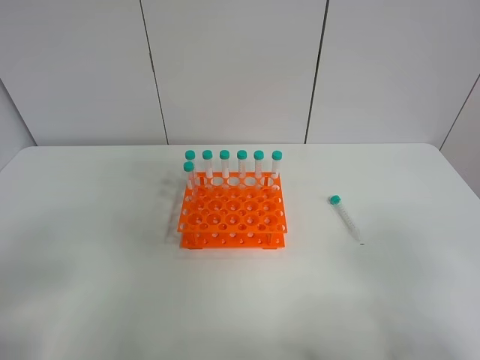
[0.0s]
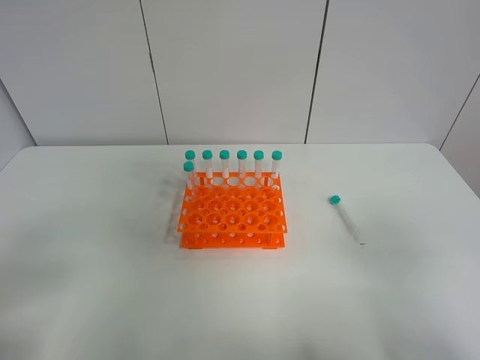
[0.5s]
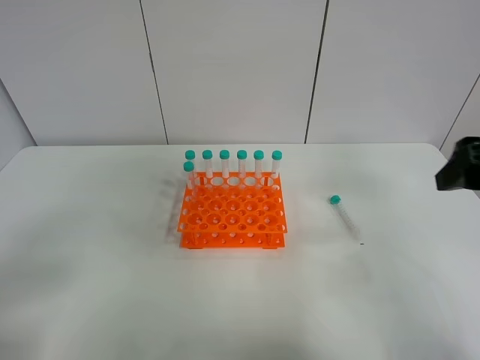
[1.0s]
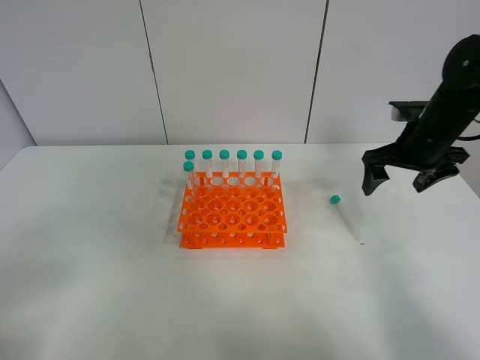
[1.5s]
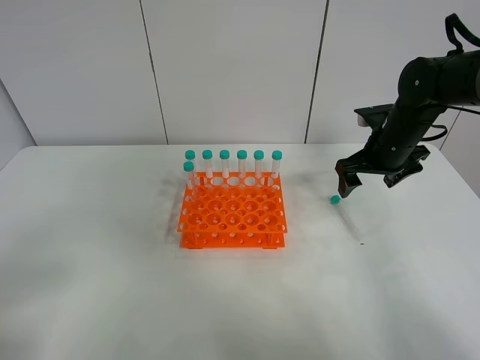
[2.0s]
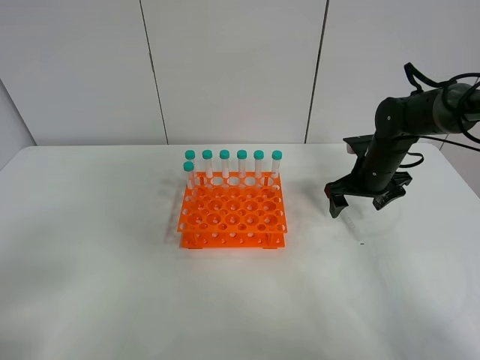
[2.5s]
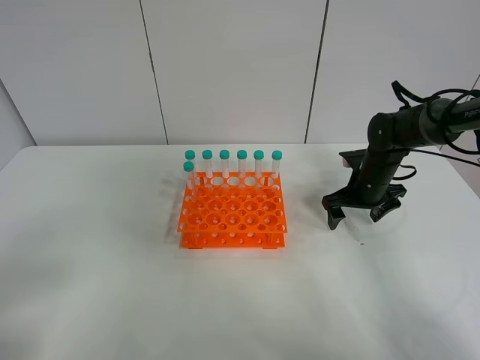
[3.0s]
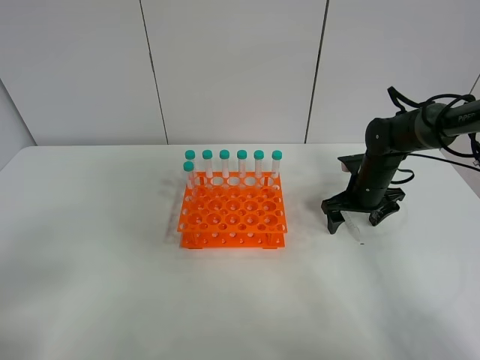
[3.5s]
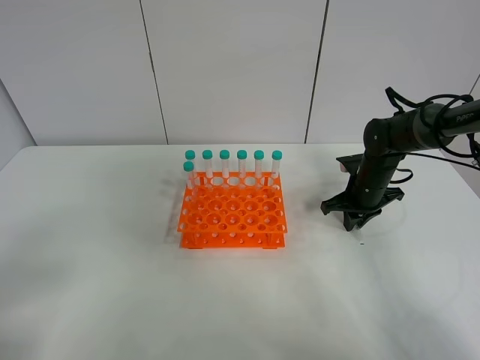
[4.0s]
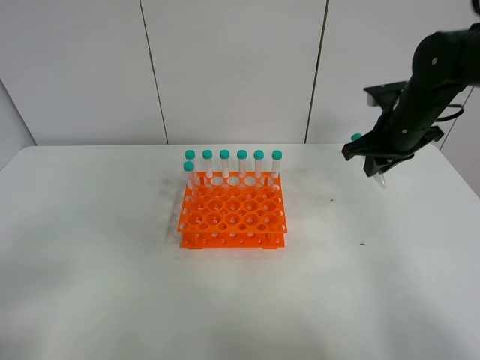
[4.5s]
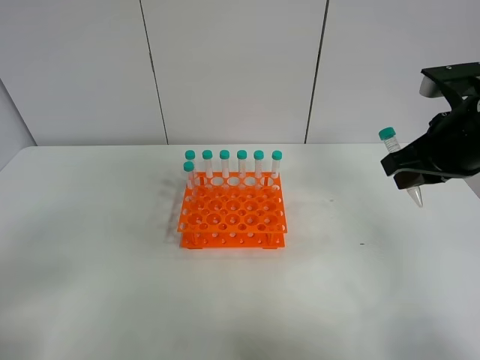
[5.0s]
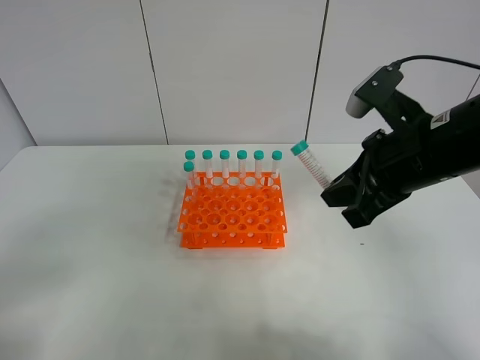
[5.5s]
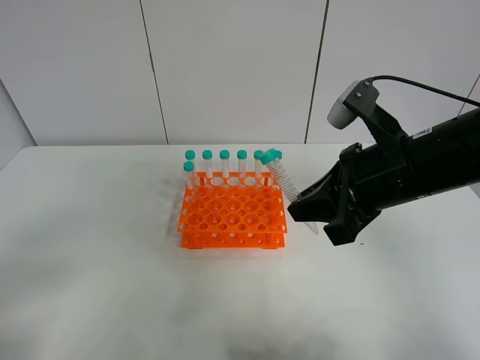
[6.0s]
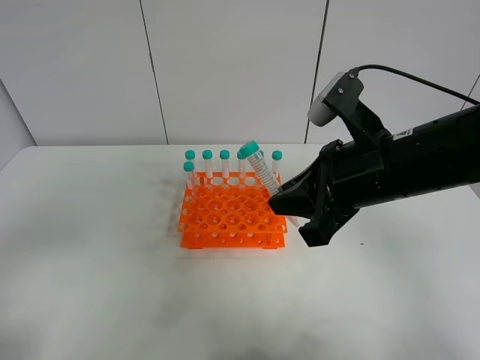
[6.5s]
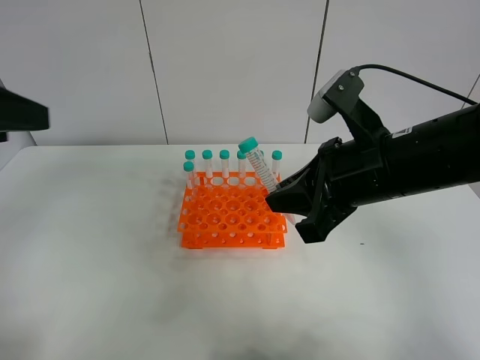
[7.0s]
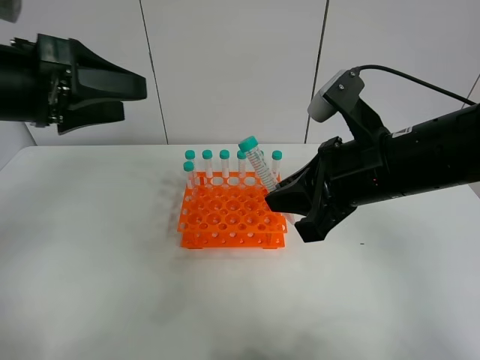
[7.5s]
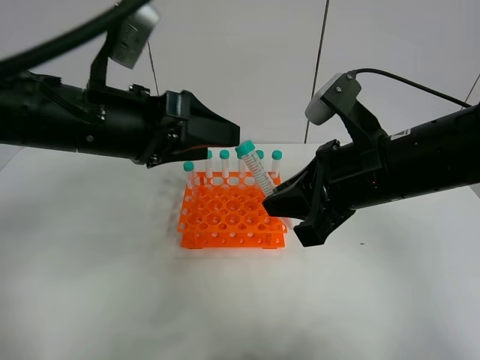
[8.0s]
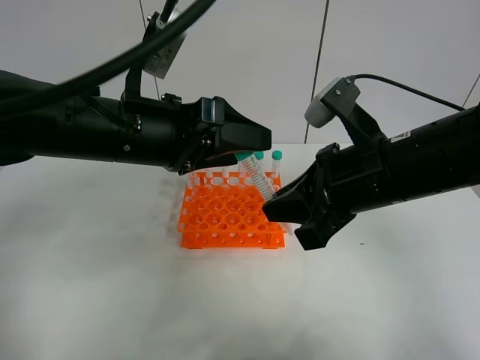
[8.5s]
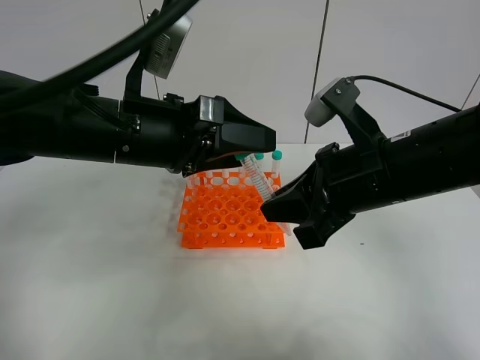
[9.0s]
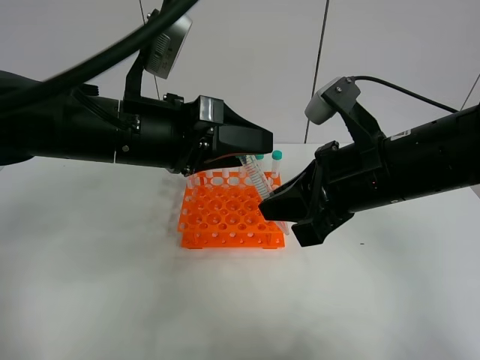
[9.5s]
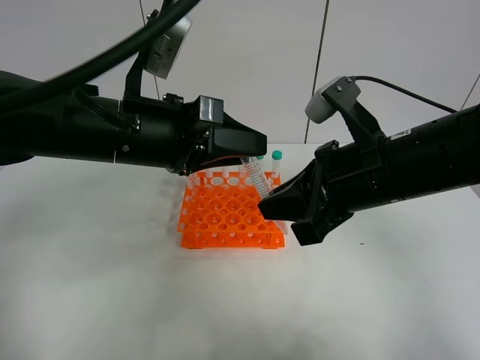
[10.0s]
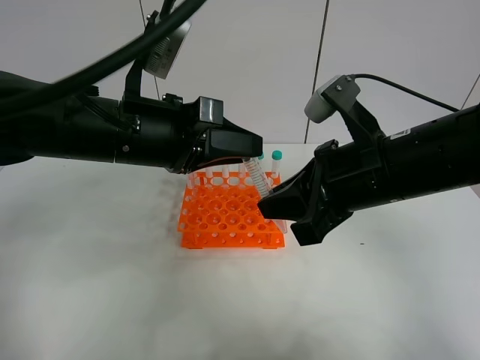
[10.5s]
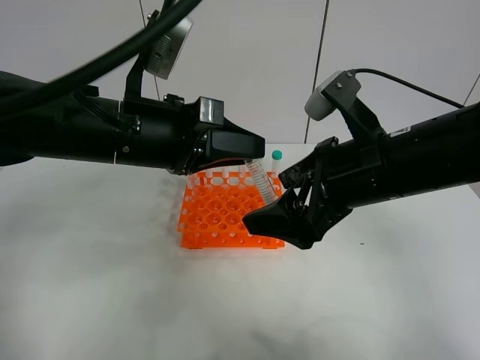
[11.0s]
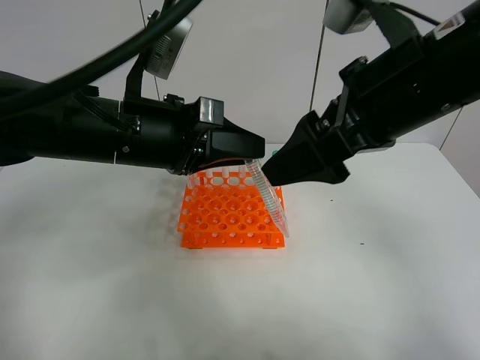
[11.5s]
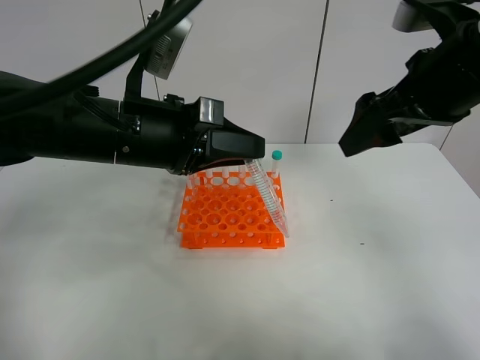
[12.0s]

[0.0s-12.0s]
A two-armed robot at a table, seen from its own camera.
Task of the whole recording: Put the test tube on the table back onto the test tube rack.
Step, 0.0s to 4.0s: Pick up the test tube with the right gripper.
Step, 4.5s to 10.5s: Move the test tube from the right gripper to the left gripper.
0.0s to 2.0s: The right gripper shifts roughly 40 cm forward.
2.0s to 4.0s: The right gripper goes some 10 cm downward, and closes its fingers.
4.0s to 6.0s: The right gripper is displaced backward, upward and to the left by about 25 cm.
6.0s to 8.0s: The left gripper moves forward and to the right, roughly 30 cm.
8.0s to 10.0s: The left gripper closes up.
10.0s to 12.0s: The right gripper heads upward and to the right, covering roughly 10 cm, and opens its fingers.

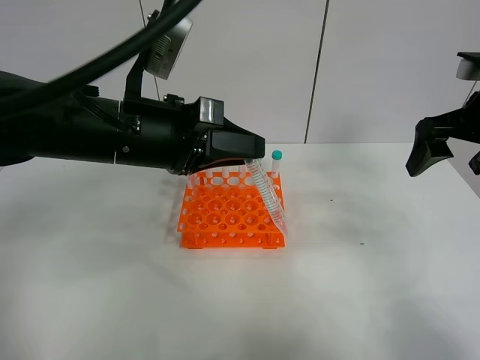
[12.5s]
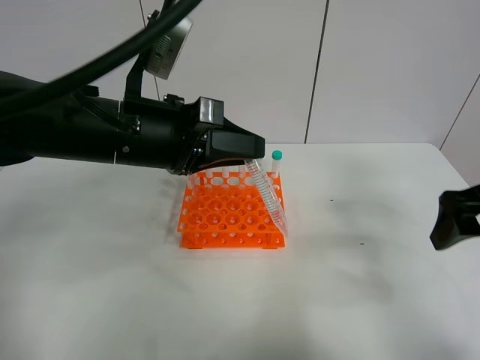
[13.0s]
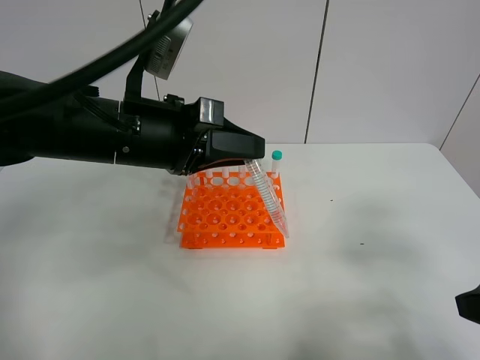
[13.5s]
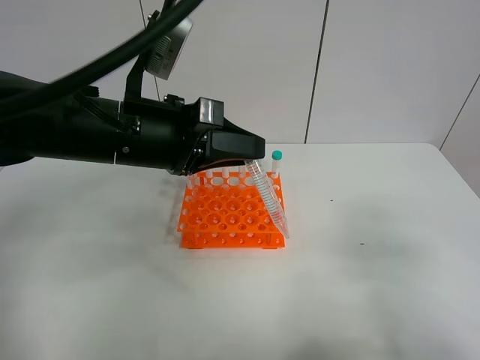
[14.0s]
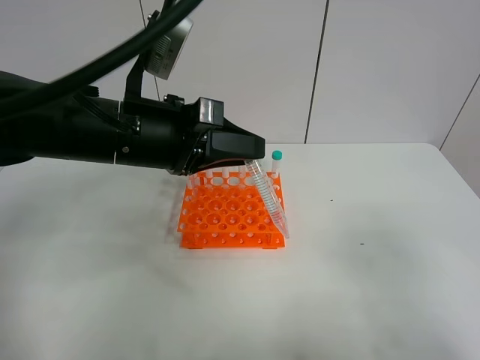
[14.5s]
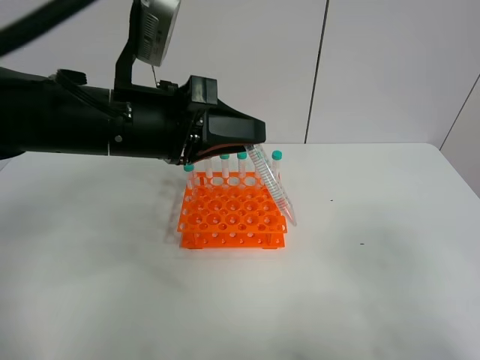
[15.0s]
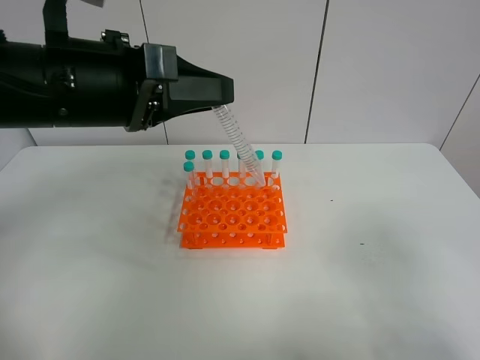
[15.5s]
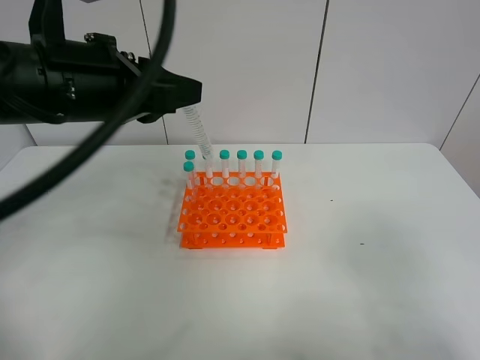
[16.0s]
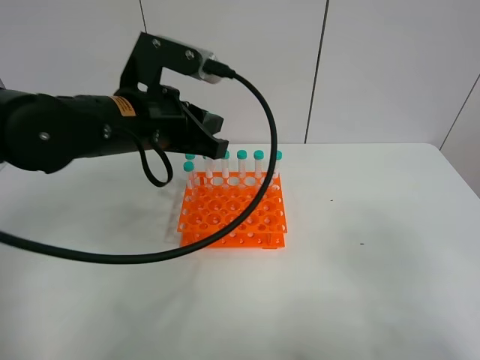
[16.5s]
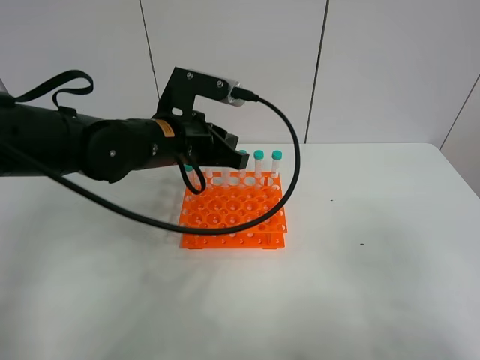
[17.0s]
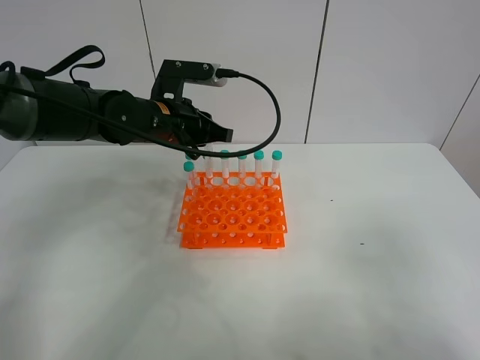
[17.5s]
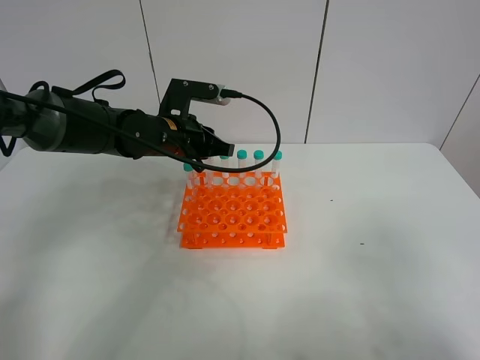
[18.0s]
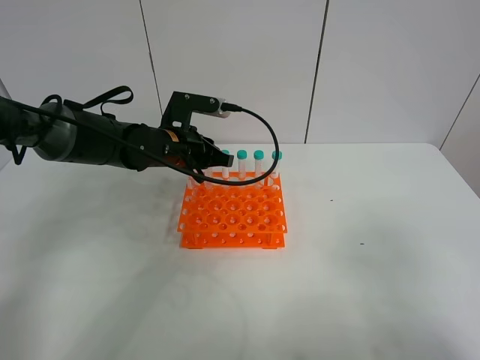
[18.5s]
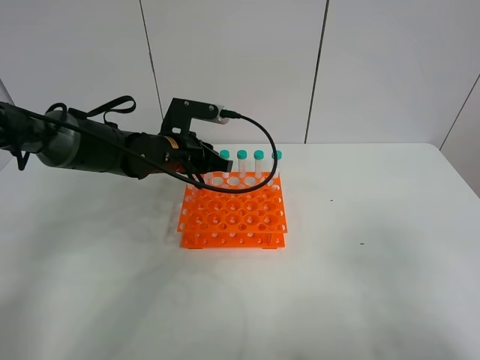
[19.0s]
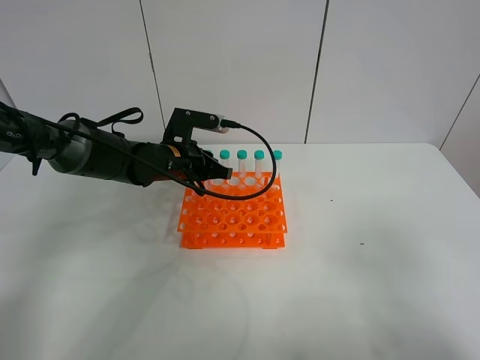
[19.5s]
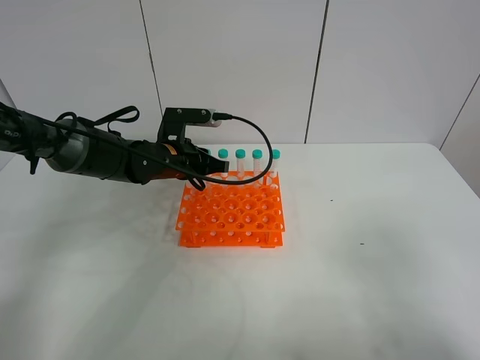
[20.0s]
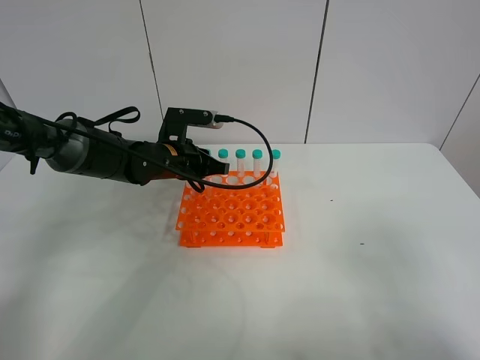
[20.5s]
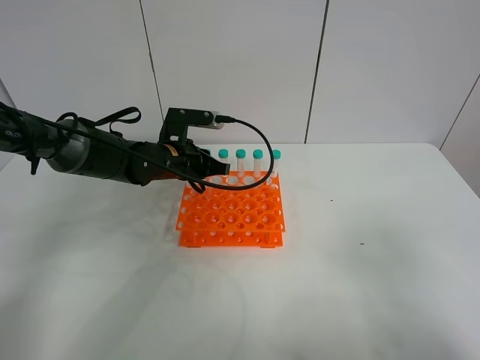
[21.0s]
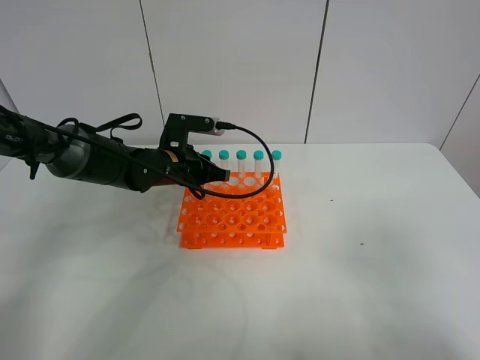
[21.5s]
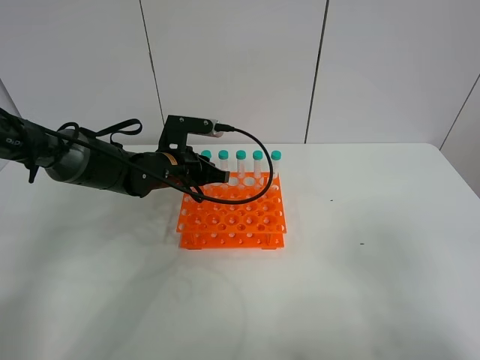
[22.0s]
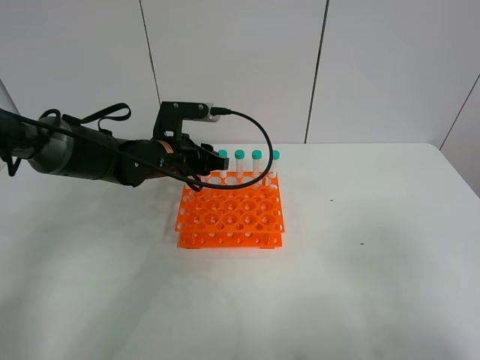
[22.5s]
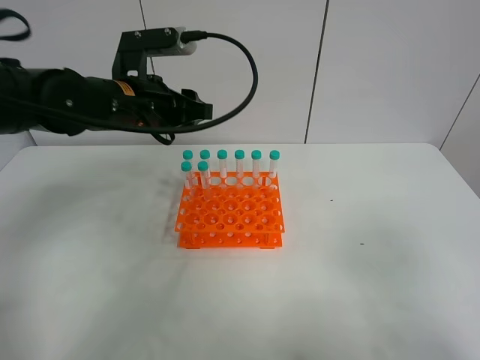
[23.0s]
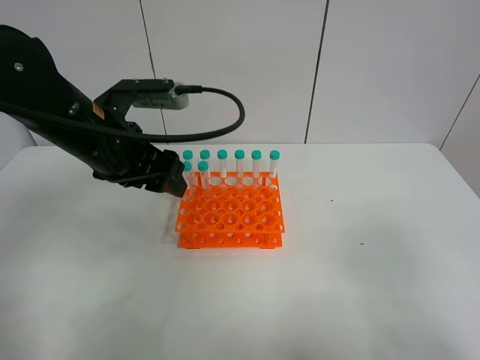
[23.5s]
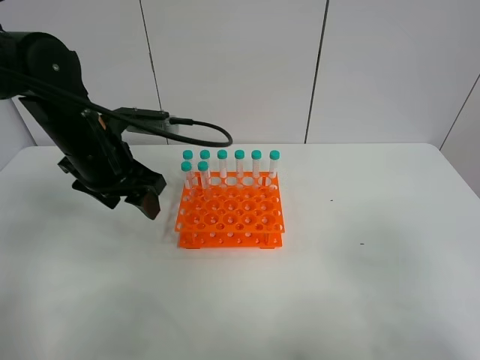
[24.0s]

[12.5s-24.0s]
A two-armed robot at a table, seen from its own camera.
Task of the whole recording: Put the test tube on the table back onto the test tube rack.
Step, 12.5s to 22.0s: Place the test tube on the test tube rack with the left gripper.
12.5s to 14.5s: The right gripper heads backward, covering about 30 cm.
16.5s to 18.5s: The left gripper shifts some 15 cm forward and downward.
18.5s to 22.0s: The grippers make only small movements.
22.0s to 24.0s: The left gripper shifts roughly 15 cm upward, to the left and backward, and opens.

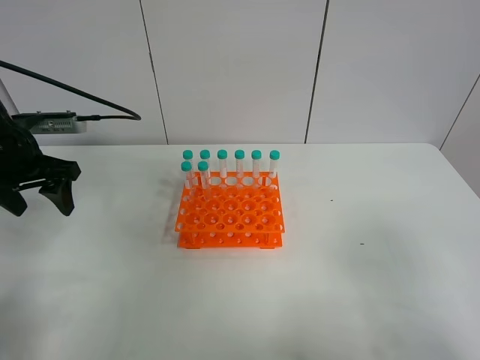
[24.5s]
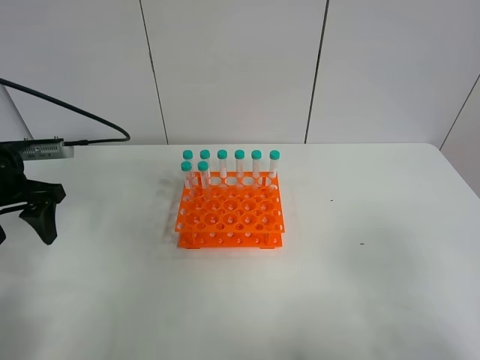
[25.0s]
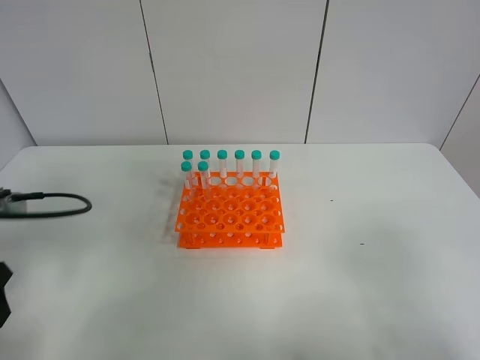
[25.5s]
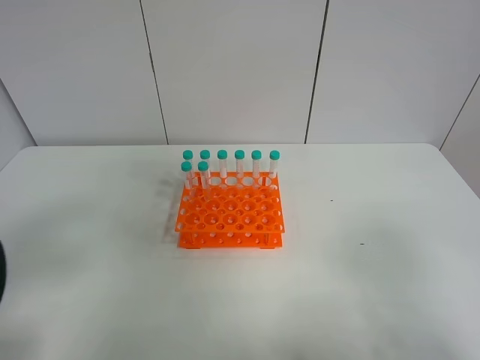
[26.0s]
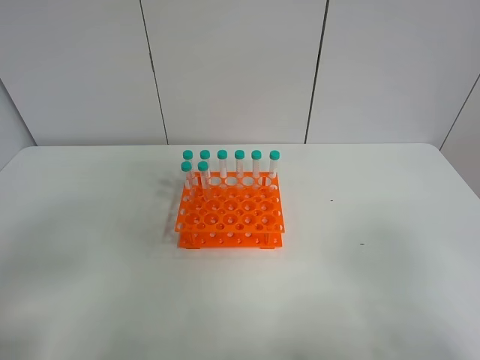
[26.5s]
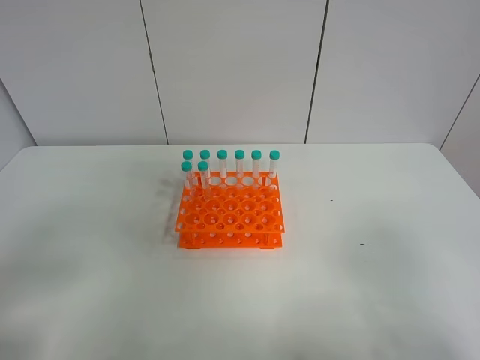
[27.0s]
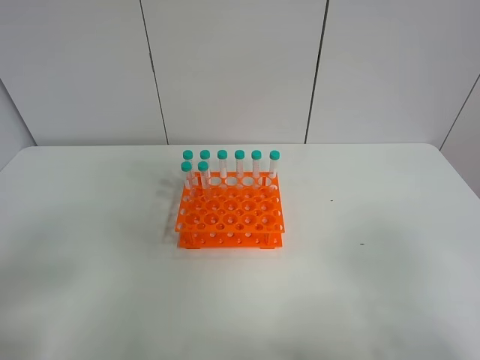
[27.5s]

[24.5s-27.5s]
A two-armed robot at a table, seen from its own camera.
Task of the whole recording: Put the test tube on the table back onto the test tube rack.
24.5s to 26.0s: The left gripper heads backward, covering some 25 cm.
